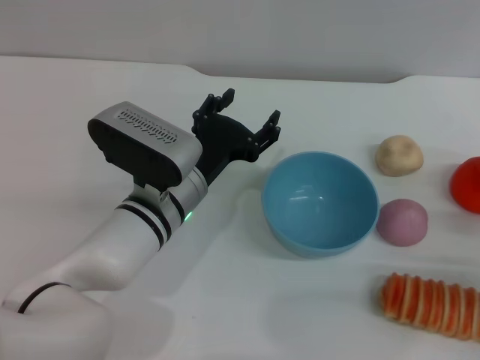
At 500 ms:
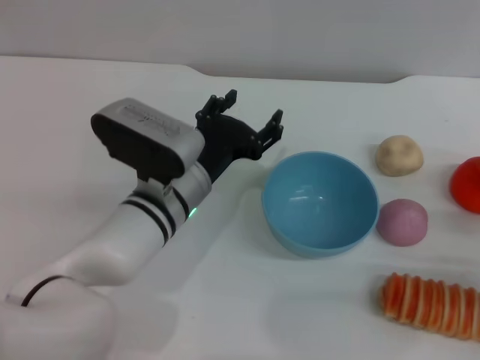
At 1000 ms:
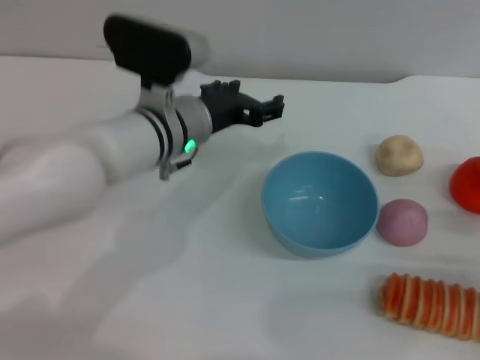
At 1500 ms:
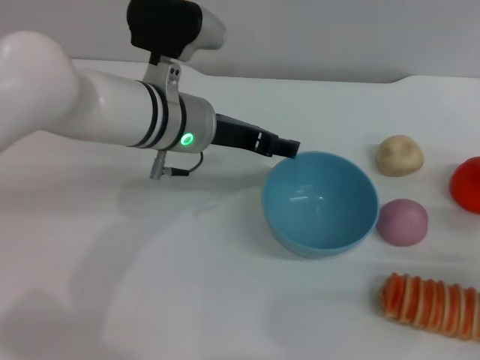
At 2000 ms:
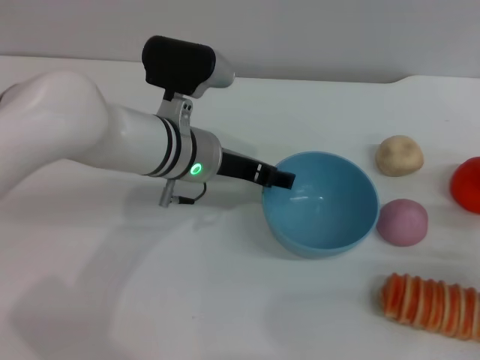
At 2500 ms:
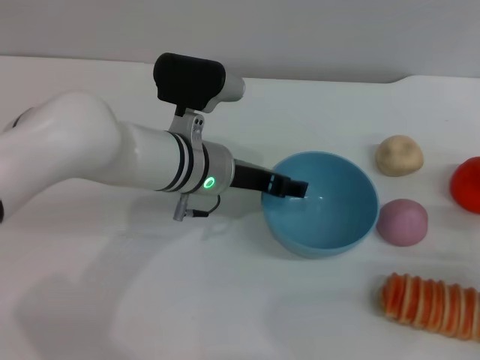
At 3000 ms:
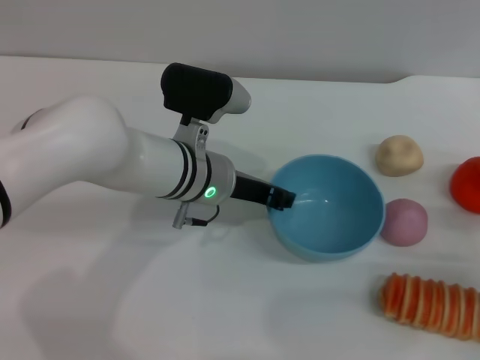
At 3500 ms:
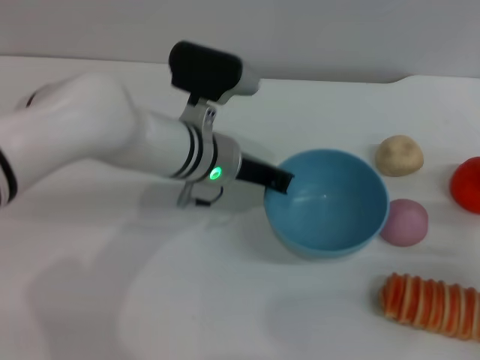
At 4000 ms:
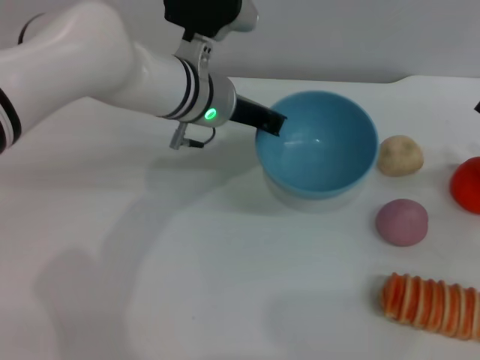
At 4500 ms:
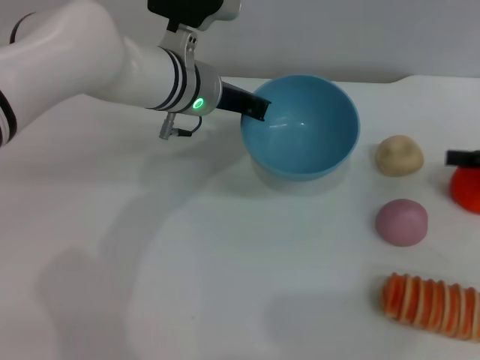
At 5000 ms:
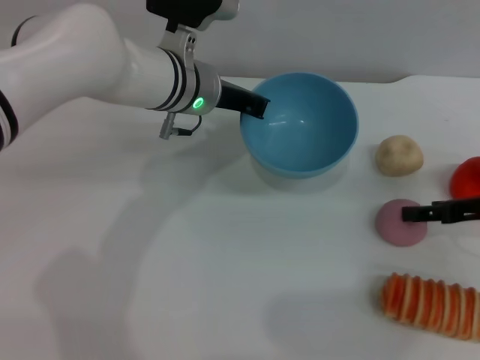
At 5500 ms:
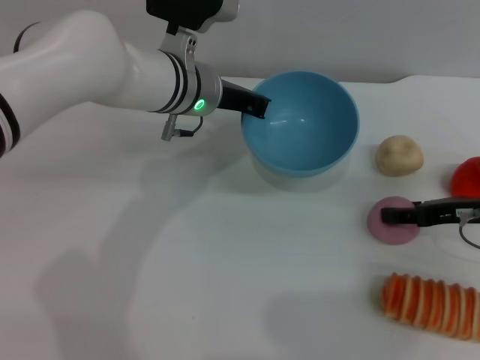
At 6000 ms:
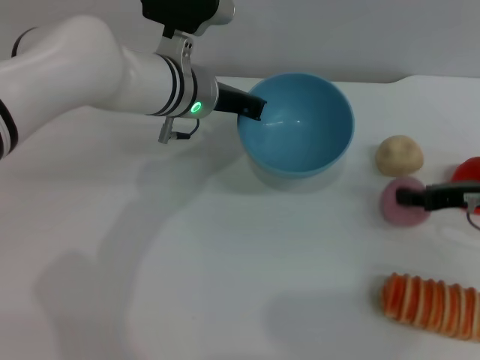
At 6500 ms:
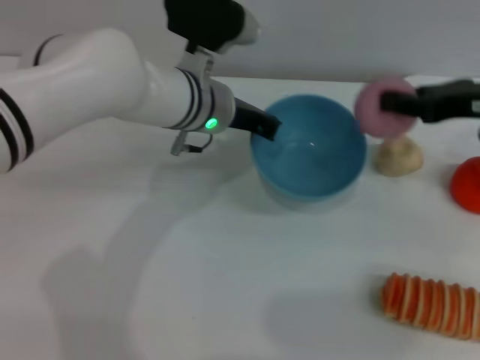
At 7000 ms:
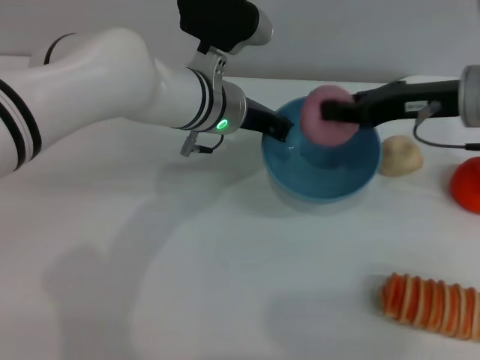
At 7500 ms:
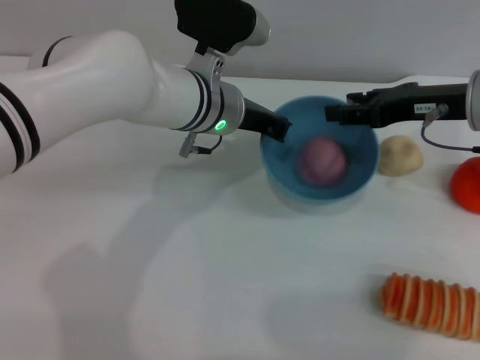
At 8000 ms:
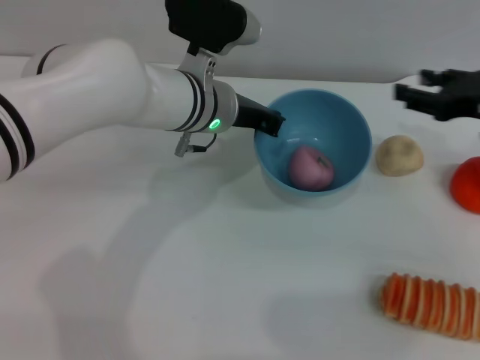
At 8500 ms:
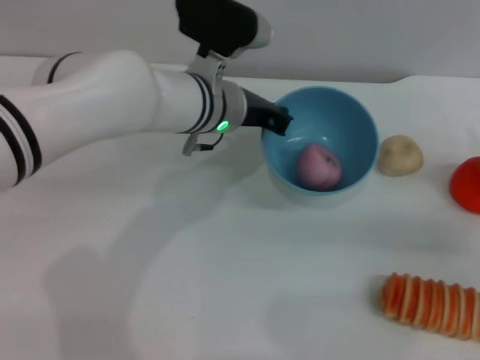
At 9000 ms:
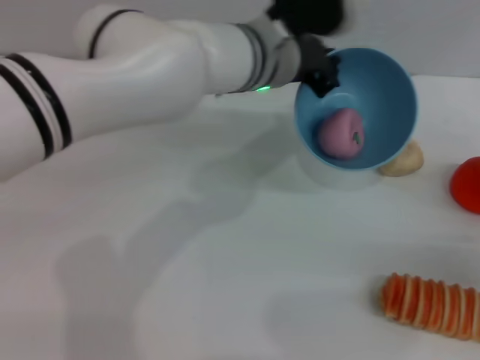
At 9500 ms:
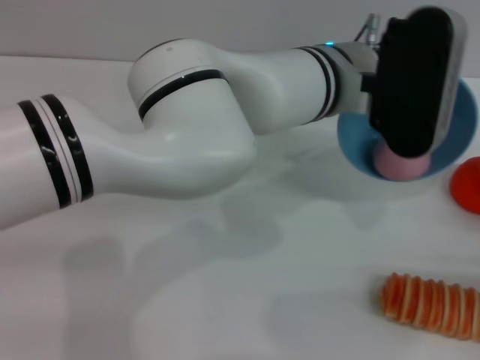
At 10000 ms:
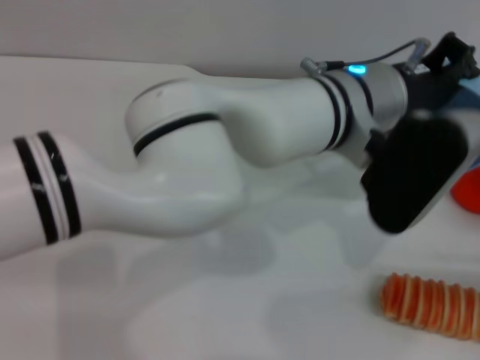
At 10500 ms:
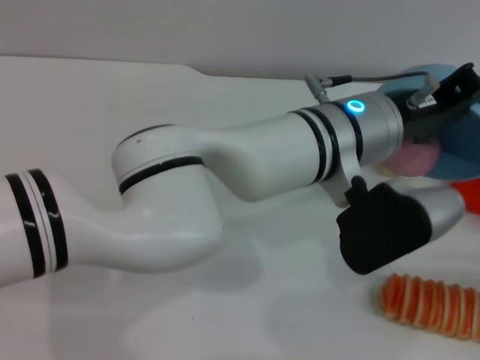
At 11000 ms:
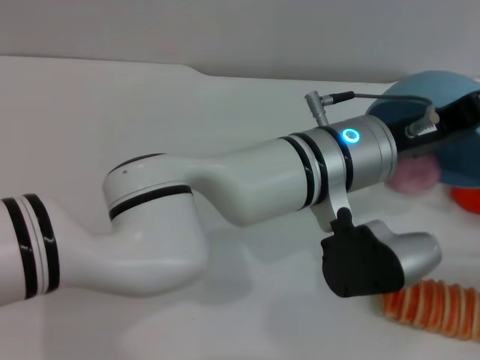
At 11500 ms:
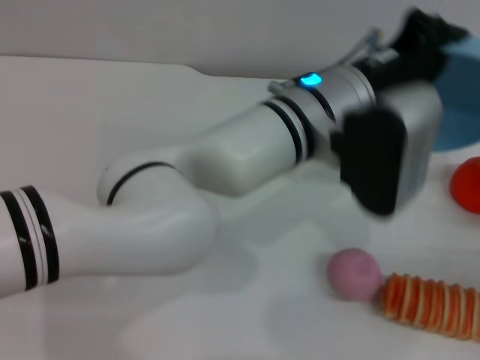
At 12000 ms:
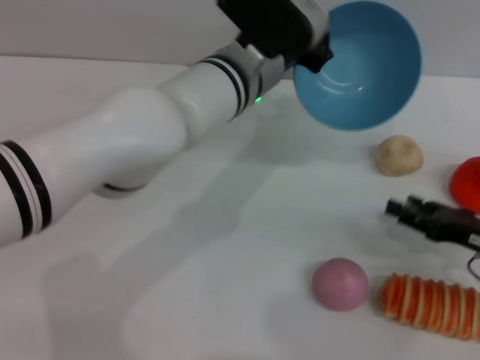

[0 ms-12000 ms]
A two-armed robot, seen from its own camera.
Task of the whole recording: put the peach into the blue bowl and pour it out repeatedly.
Step, 0 ms to 3500 ms: Pick up the bowl with the left gripper.
Step, 4000 ms to 6000 ms: Pick up the peach with the right gripper.
Step, 6500 ms to 7500 ms: Place the peach into the bowl.
Step, 8000 ms to 11500 ms: Pour the peach out of bowl.
0 ms to 2000 ms: The left gripper goes about 5 cm forward.
2000 ms to 4000 ms: The left gripper shifts by some 5 cm, and closes its fingers. The right gripper heads forward and upward, covering some 10 cm.
4000 ms to 6000 ms: The right gripper heads to the left, covering some 5 cm, and closes up.
6000 ms to 8000 ms: The right gripper moves upward, approximately 5 cm, and closes, then reopens.
8000 ms to 10000 ms: The left gripper moves to the right, backward and upward, about 15 cm. The right gripper heads backward, downward and to the right, covering about 20 cm.
10000 ms to 12000 ms: The left gripper goes roughly 10 cm to the left and forward. The right gripper shifts about 5 cm to the left.

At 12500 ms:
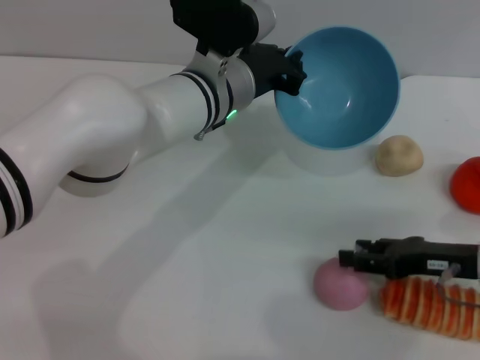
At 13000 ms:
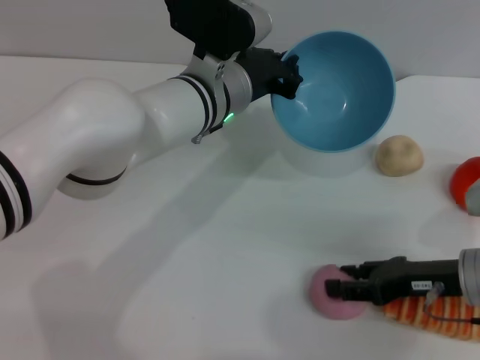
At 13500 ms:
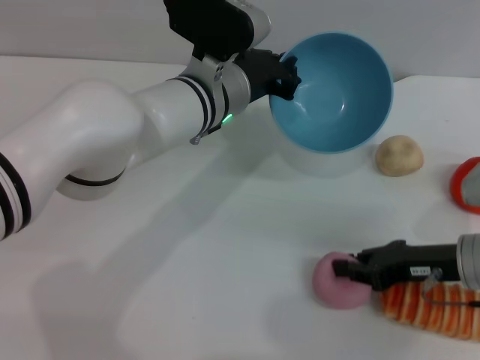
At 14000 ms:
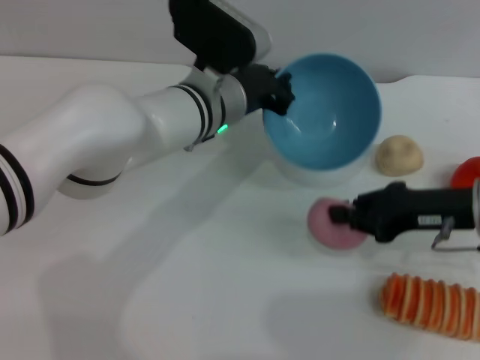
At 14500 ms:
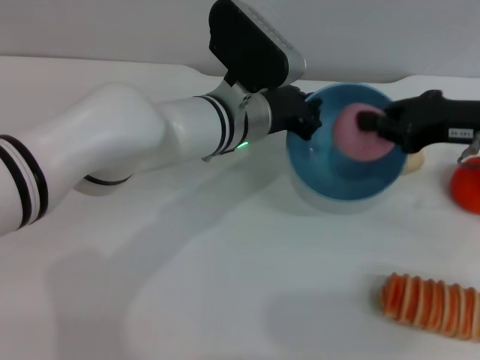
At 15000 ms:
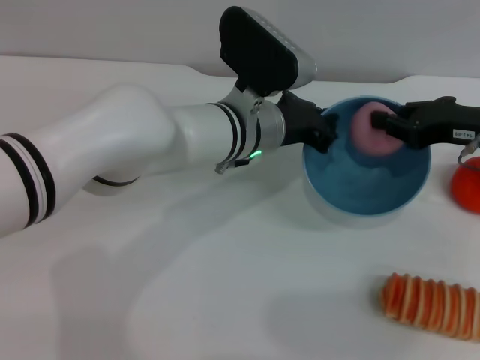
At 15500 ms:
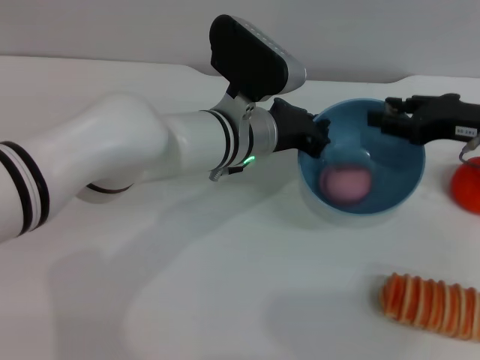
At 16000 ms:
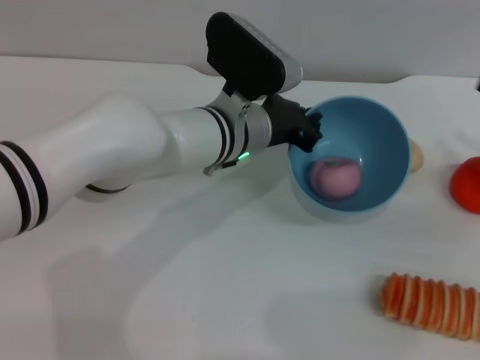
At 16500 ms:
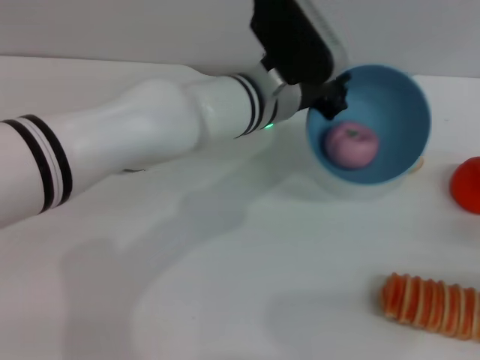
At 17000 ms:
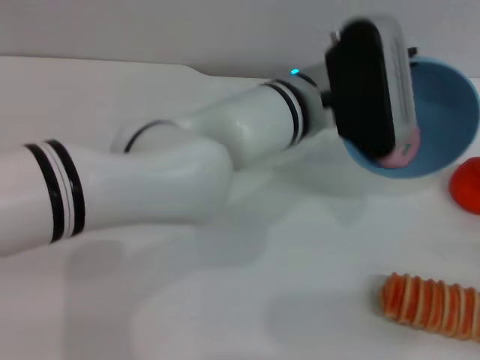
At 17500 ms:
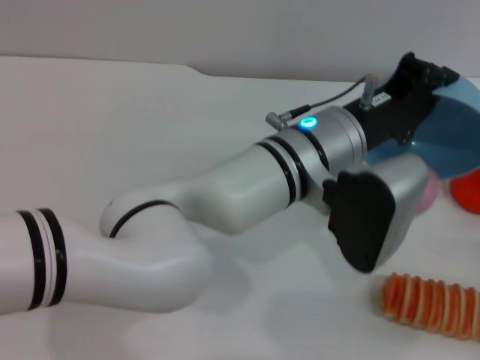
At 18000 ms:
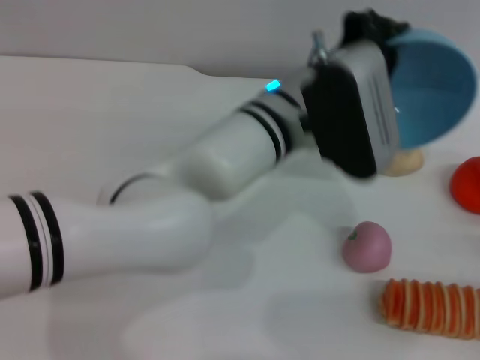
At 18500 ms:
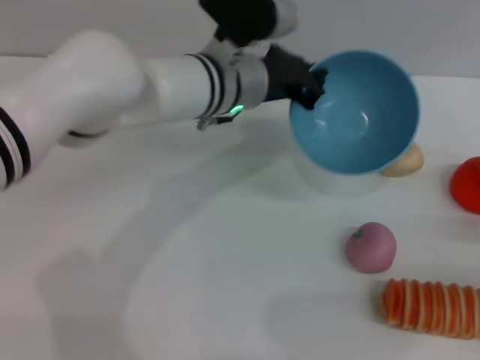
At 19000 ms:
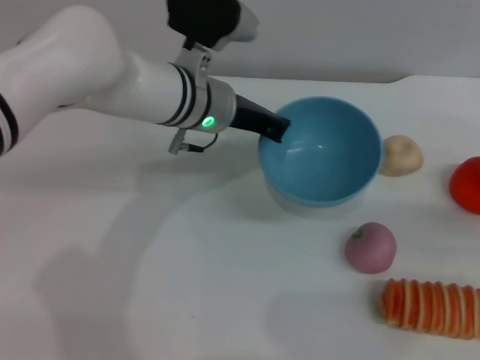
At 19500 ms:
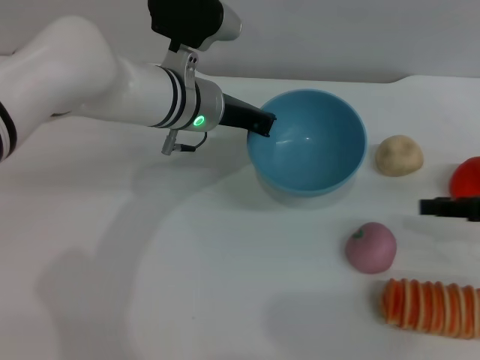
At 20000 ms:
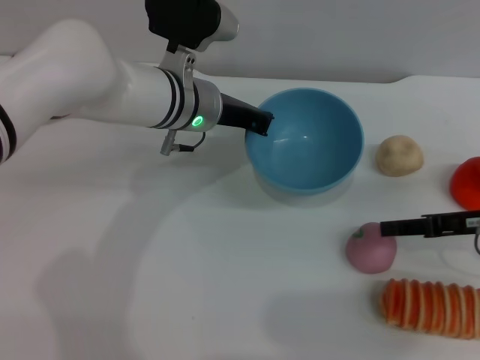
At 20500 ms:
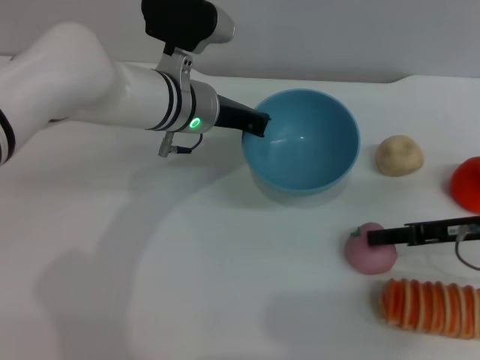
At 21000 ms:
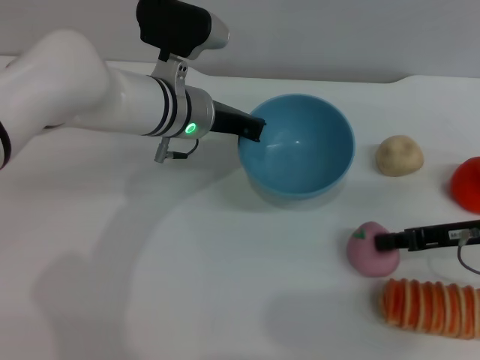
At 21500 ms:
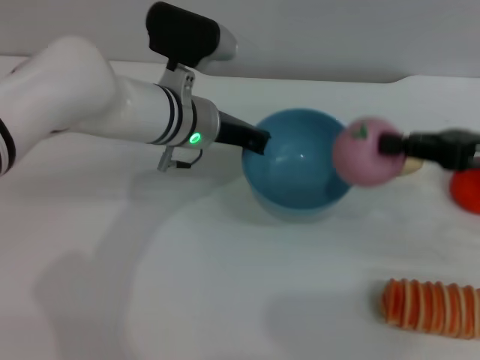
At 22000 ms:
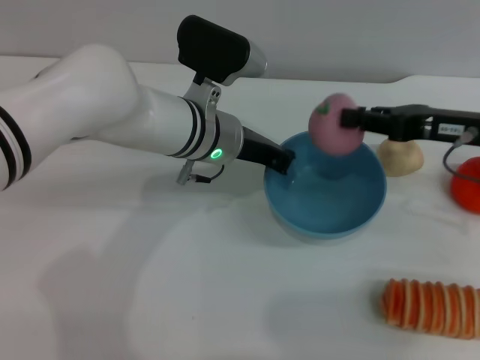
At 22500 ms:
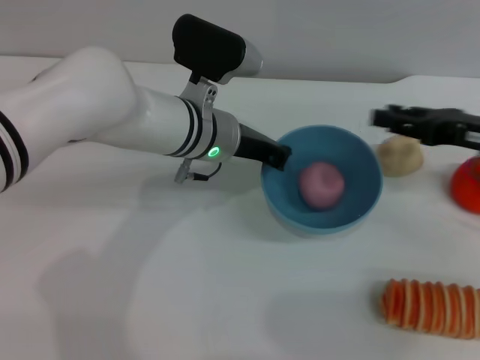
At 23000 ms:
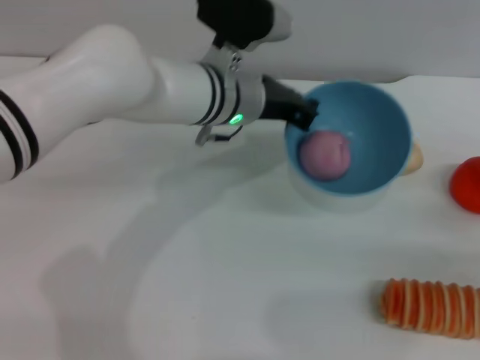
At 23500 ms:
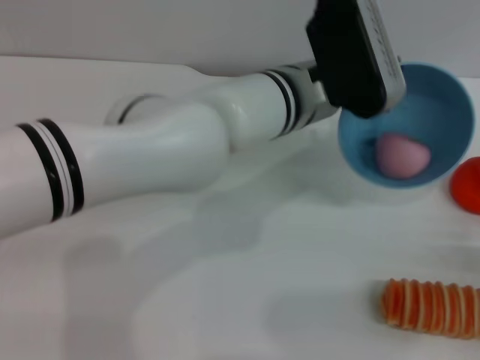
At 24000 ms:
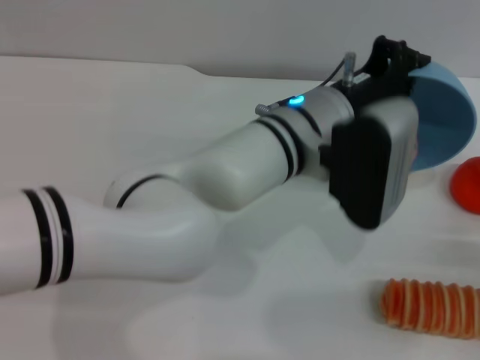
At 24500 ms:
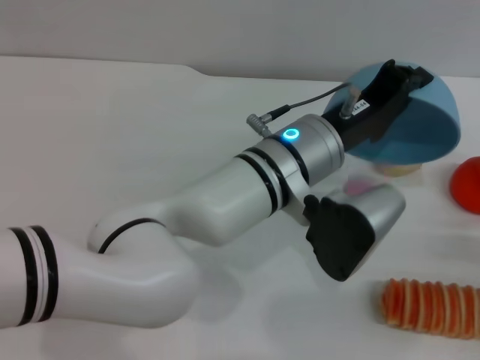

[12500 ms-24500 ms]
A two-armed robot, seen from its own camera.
Task of the whole recording: put the peach into the blue bowl and pour it out repeatedly.
Step, 12500 ms to 14000 ms: Pick up the peach with the right gripper.
Step, 14500 ms to 15500 ms: Place the peach into the bowl.
Step, 16000 ms to 18000 ms: Pour the peach out of bowl.
Step, 18500 ms to 21000 ms: Pick up the peach with the right gripper.
Step, 21500 ms to 22000 ms: Place the peach into the bowl.
12500 ms to 14500 ms: The right gripper travels upward and forward by about 15 cm, and closes up.
14500 ms to 16500 ms: The right gripper shifts approximately 20 cm backward, downward and to the right, and opens up.
16500 ms to 18500 ms: The left gripper moves some 10 cm backward and comes back.
18500 ms to 20500 ms: The right gripper heads to the left and forward, covering roughly 15 cm, while the left gripper ends up about 5 cm from where it was.
20500 ms to 22500 ms: The right gripper goes some 5 cm upward, and closes, then opens again.
22500 ms to 24500 ms: The left gripper moves to the right and backward, about 10 cm. The right gripper shifts approximately 20 cm backward, downward and to the right.

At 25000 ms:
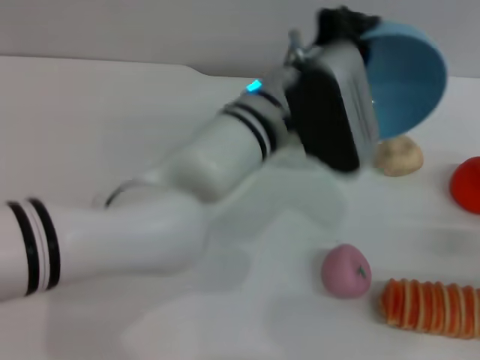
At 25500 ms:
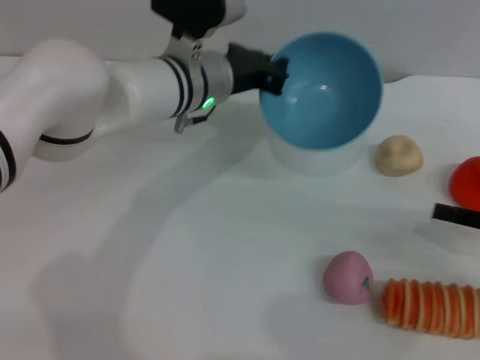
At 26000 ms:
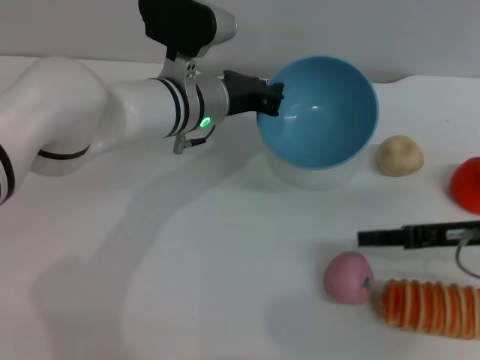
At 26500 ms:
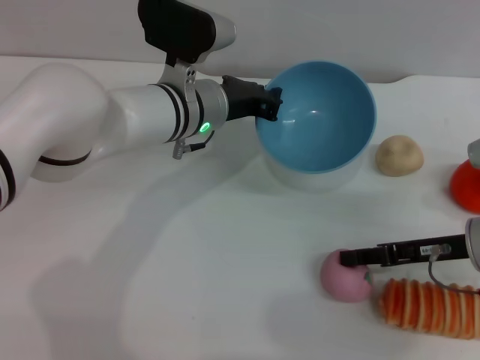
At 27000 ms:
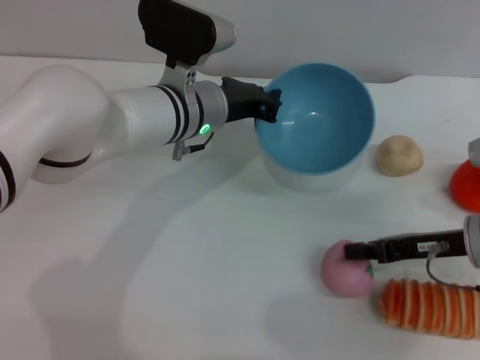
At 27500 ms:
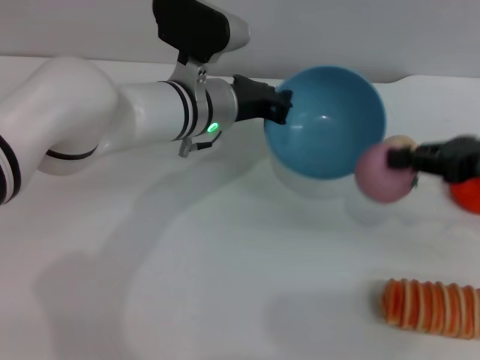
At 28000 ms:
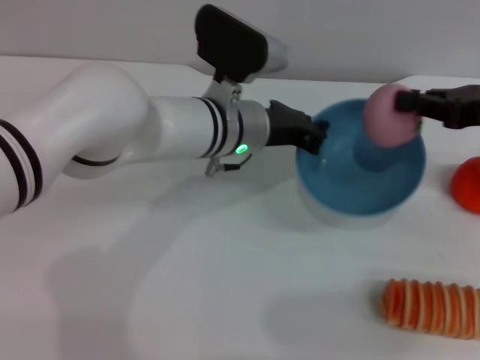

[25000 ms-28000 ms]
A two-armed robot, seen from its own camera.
Task of the whole recording: put the peach into the blue bowl and pour it out repeatedly.
Step, 25000 ms to 27000 ms: Pick up the peach with the right gripper.
25000 ms to 26500 ms: Both grippers move to the left and forward, about 10 cm.
26500 ms to 28000 ms: The right gripper shifts some 10 cm upward, and closes its fingers.
